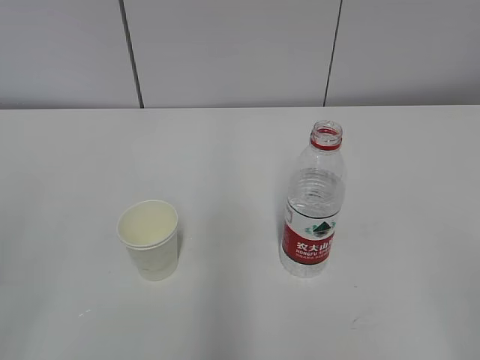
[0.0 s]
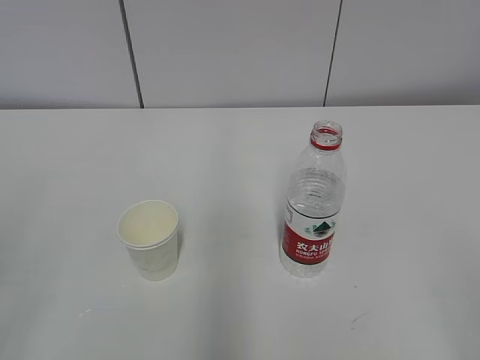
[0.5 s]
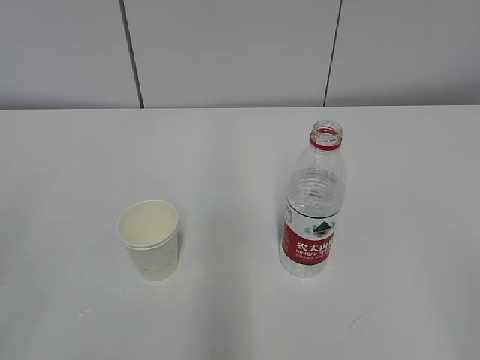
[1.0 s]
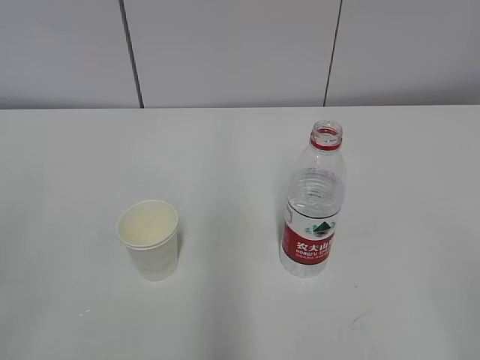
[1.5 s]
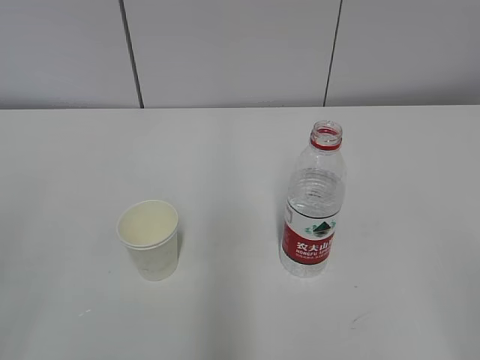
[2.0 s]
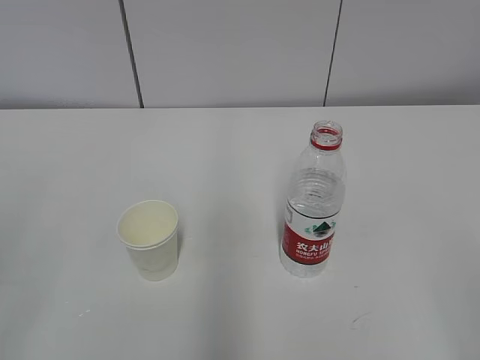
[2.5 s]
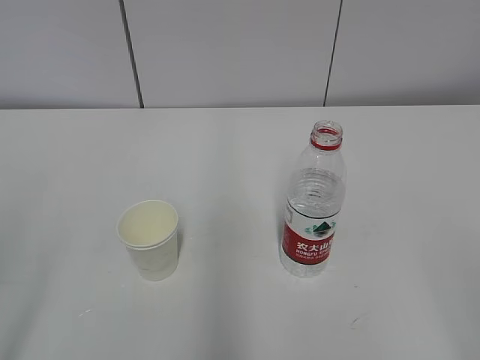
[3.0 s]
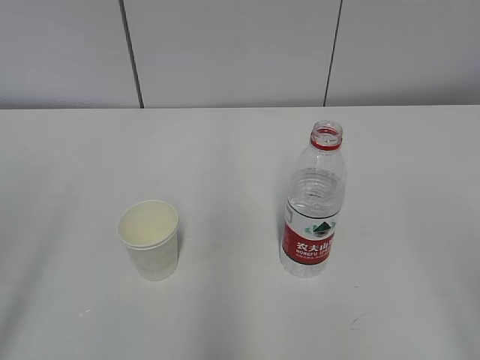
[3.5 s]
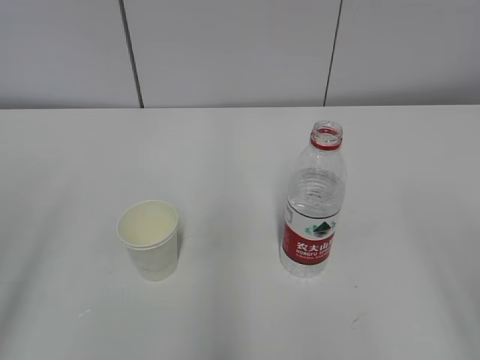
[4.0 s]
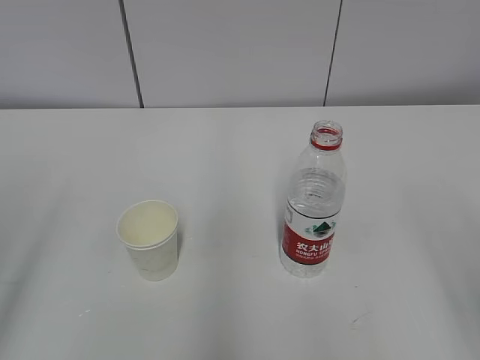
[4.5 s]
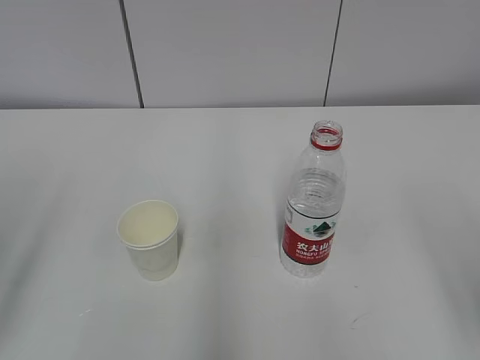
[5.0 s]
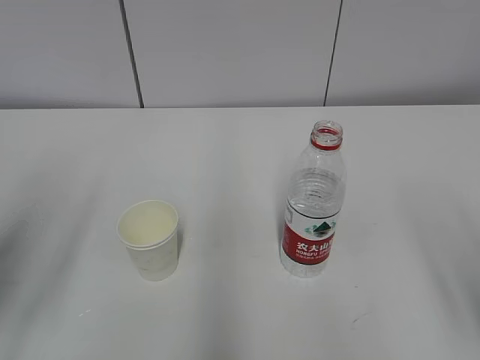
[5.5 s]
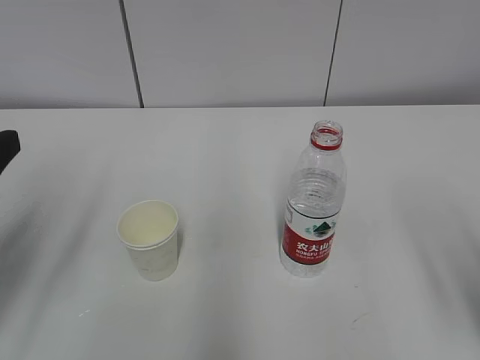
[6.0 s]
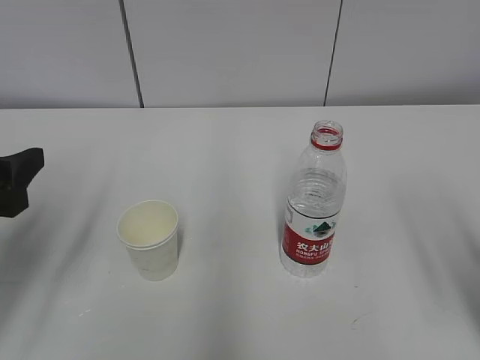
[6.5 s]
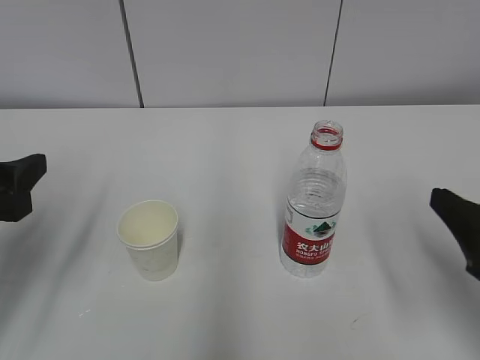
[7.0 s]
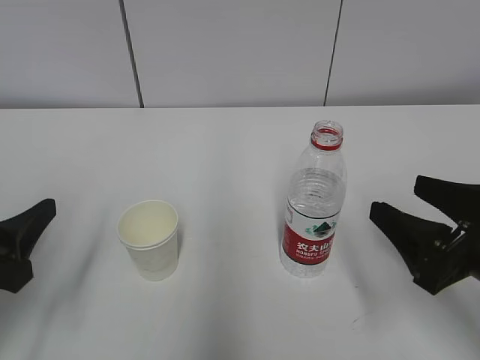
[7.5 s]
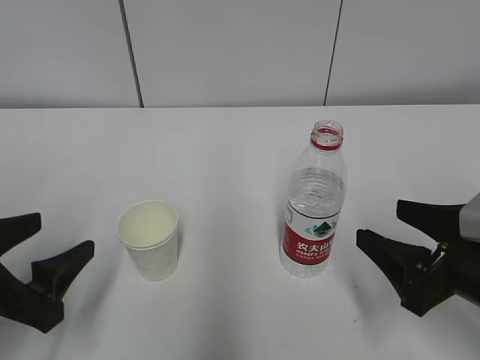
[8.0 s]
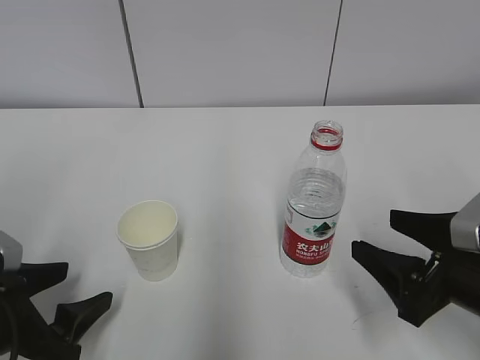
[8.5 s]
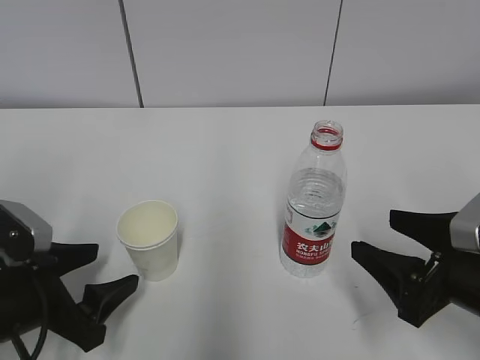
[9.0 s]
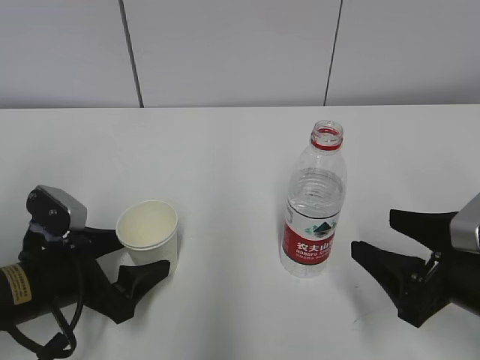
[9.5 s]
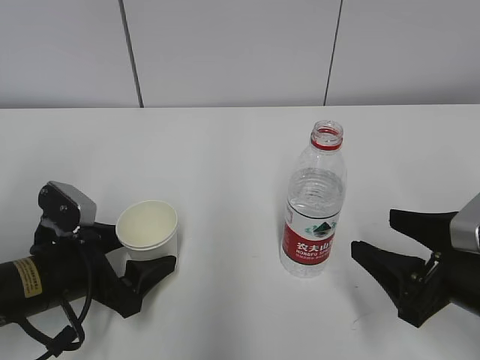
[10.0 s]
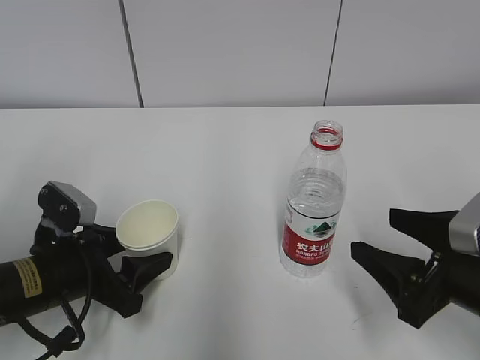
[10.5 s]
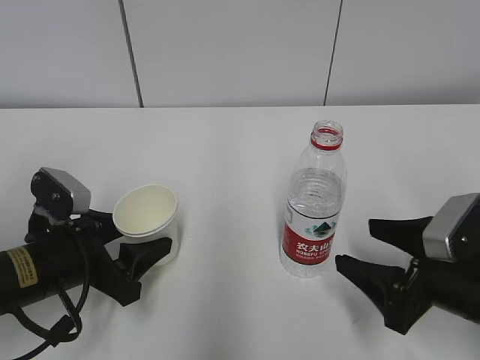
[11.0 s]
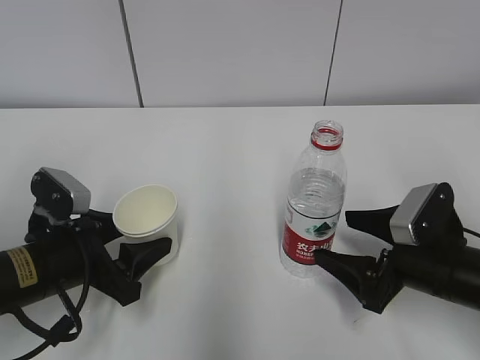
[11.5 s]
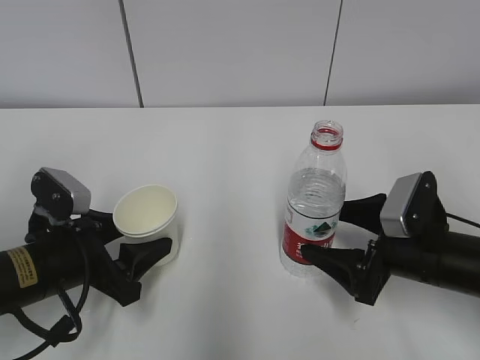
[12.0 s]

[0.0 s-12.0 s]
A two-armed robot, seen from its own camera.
Step, 0.0 to 8.5 s: Grab the paper cup with the left hand.
Step, 9.0 to 11.5 s: Grab the water bottle with the right hand.
4.0 to 6.0 s: The left gripper heads forward, covering approximately 10 cm.
6.0 to 8.0 s: The right gripper travels downward and forward by some 10 cm. Meanwhile the left gripper travels downward by approximately 10 cm.
8.0 to 10.0 s: The left gripper heads forward and downward, covering about 10 cm.
10.0 to 12.0 s: The left gripper closes, while the right gripper heads forward, covering some 5 cm.

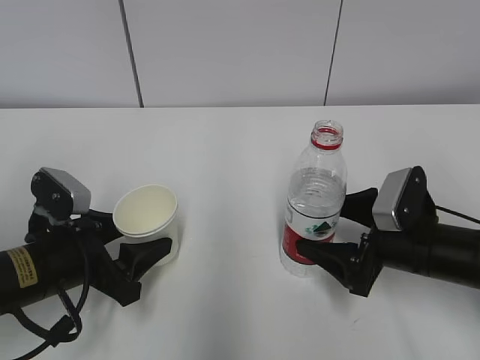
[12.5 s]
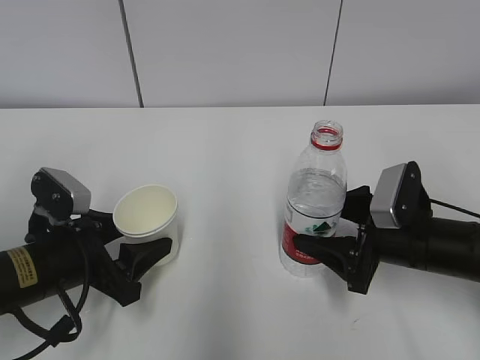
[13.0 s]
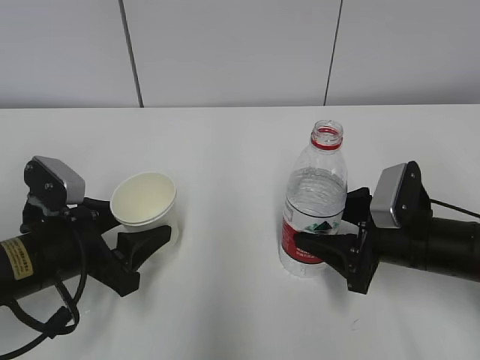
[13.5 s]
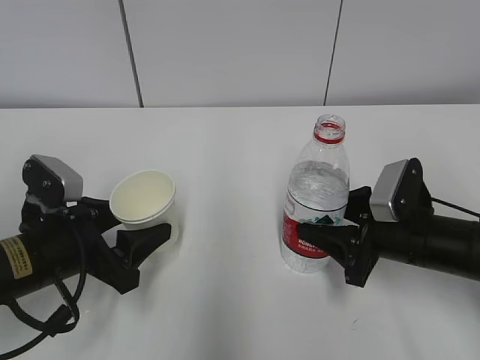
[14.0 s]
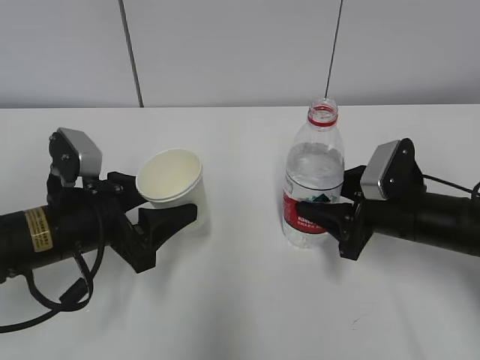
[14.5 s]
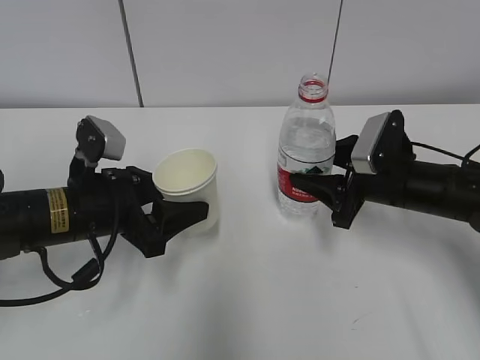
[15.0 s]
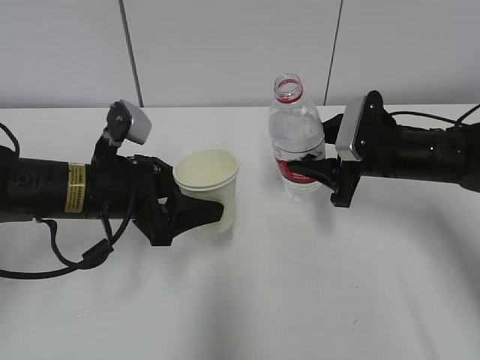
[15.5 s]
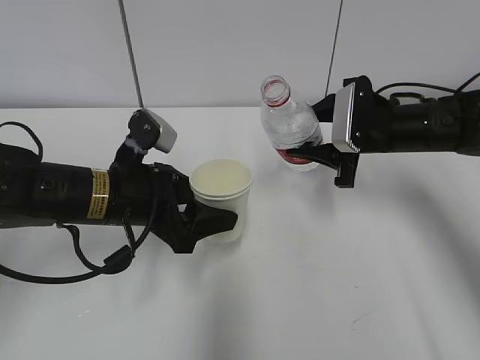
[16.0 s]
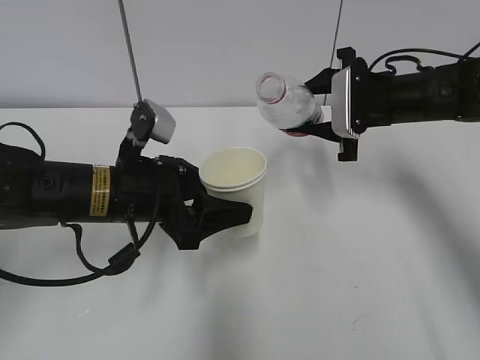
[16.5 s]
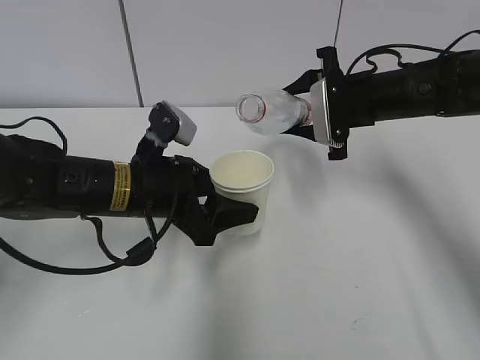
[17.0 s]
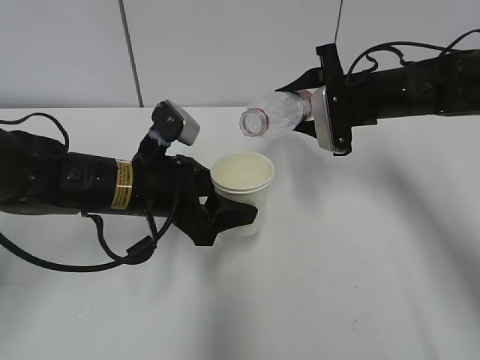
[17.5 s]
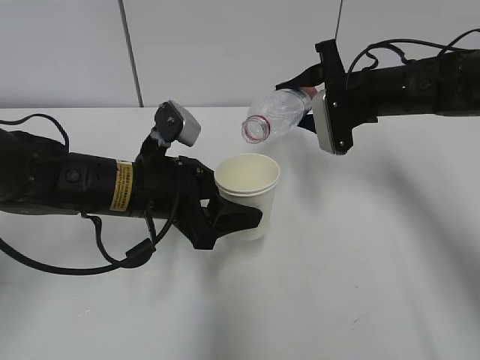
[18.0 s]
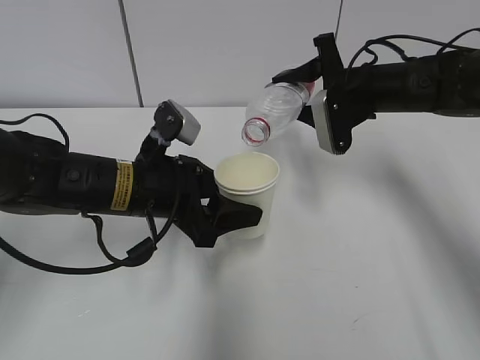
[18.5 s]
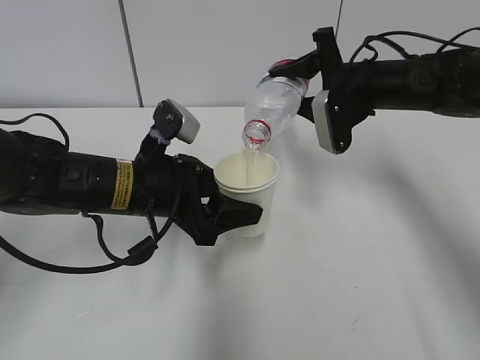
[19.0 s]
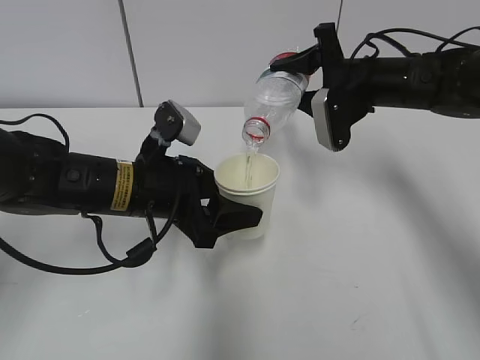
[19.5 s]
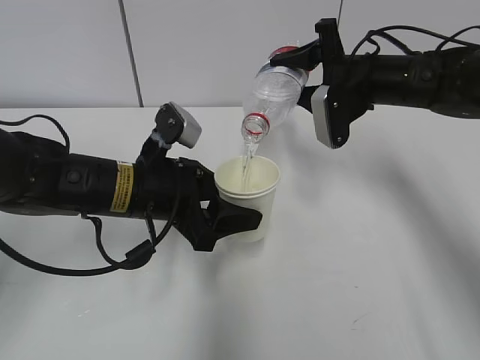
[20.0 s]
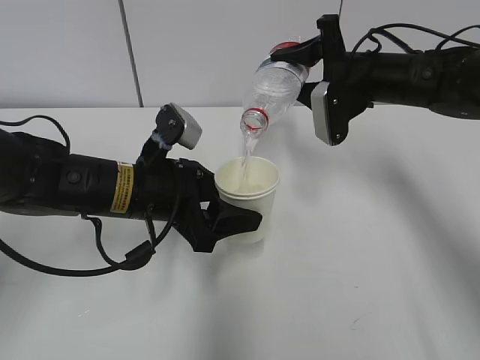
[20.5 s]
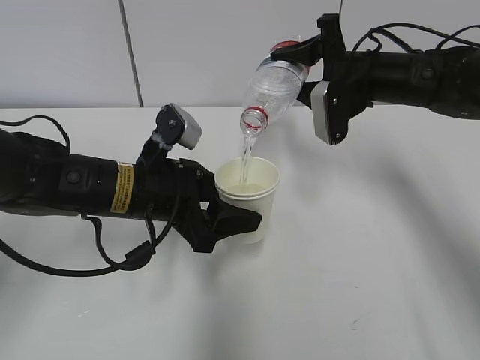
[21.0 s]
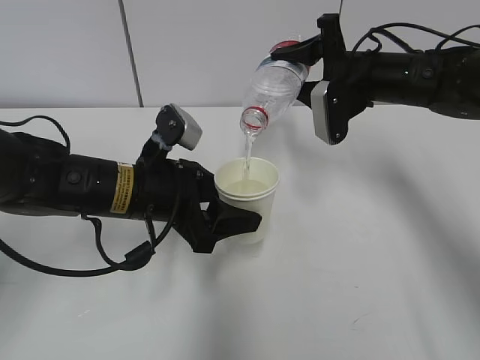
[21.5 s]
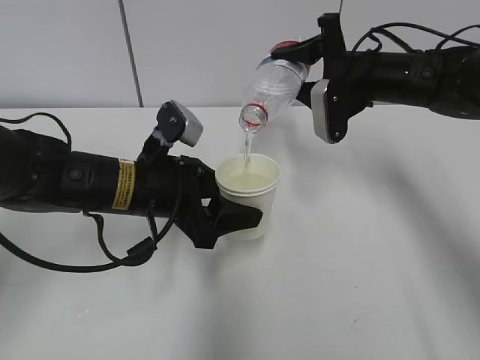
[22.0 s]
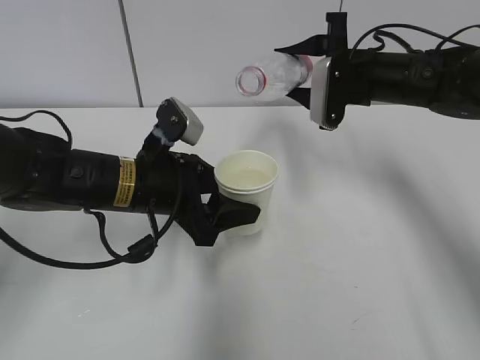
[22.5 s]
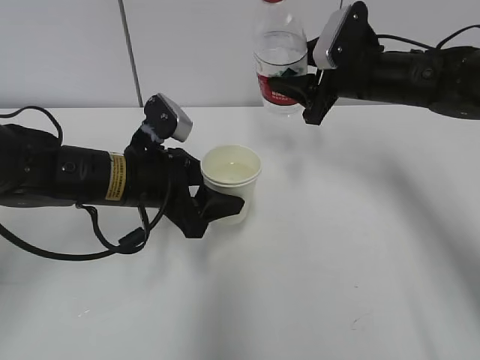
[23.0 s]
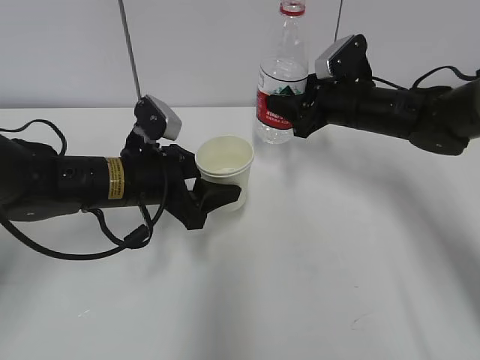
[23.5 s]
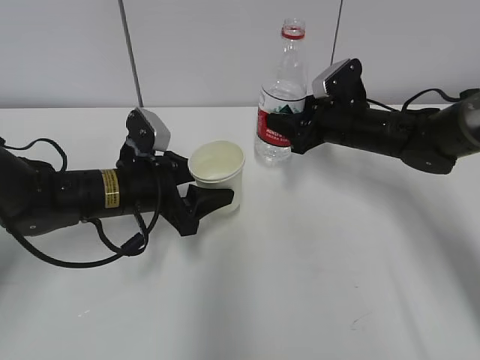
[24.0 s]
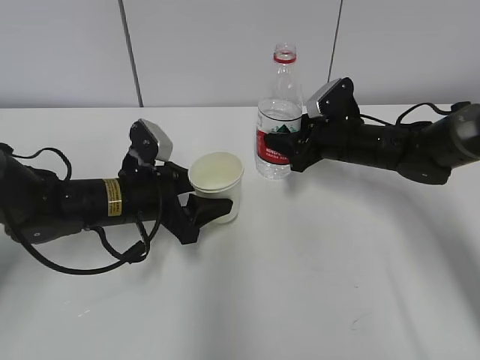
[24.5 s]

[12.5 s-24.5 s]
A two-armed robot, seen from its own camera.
Step, 12.5 to 15.5 s: Lift the paper cup with the left hand.
Step, 16.0 to 18.5 s: Fill water with the left hand.
Step, 16.0 to 18.5 s: Pour water with the right hand.
Step, 19.5 to 20.5 s: Place the paper cup with the left hand.
12.5 to 14.5 s: The right gripper closes.
14.5 to 16.5 s: The right gripper moves forward and upward, approximately 15 cm, while the left gripper shifts roughly 5 cm to the right.
18.5 to 22.5 s: The grippers move only a little.
22.5 to 24.5 s: The left gripper is displaced downward by about 5 cm; the right gripper moves downward, some 10 cm.

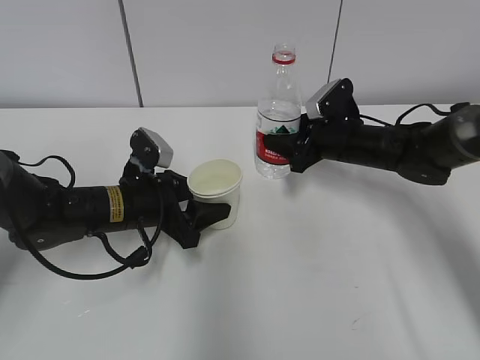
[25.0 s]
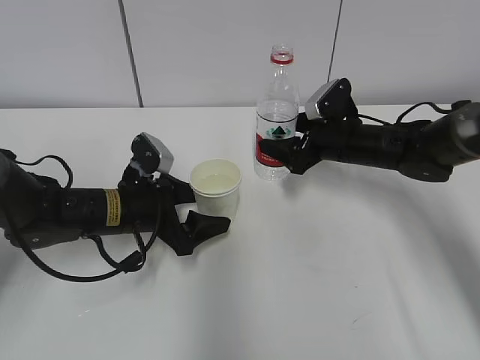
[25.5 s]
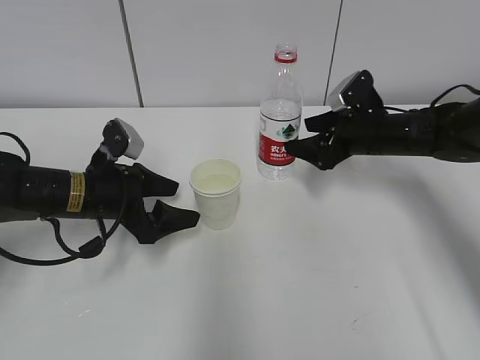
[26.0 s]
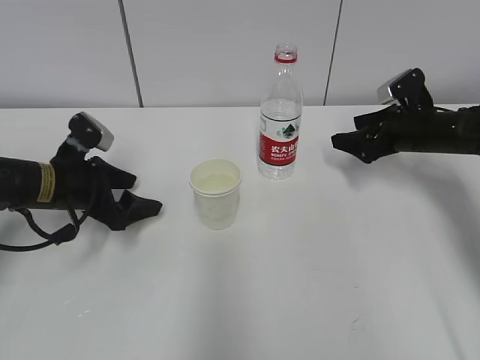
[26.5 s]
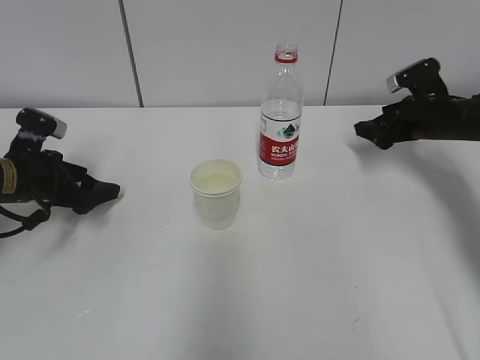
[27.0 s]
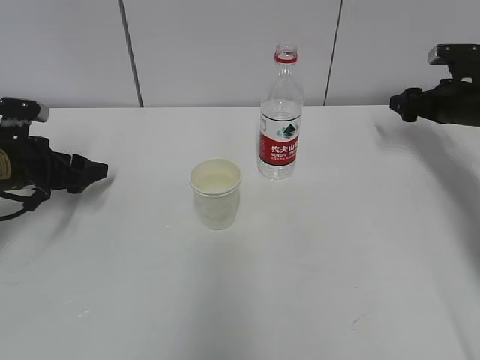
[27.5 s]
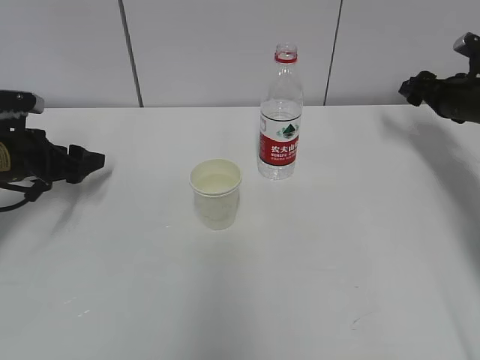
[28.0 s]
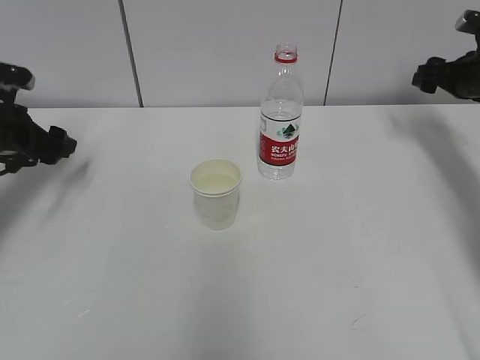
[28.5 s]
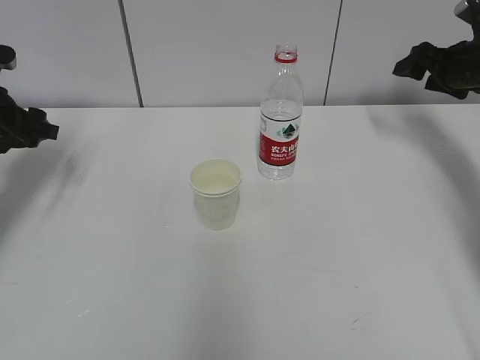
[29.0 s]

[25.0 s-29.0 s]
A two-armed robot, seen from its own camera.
25.0 to 27.0 s: The left gripper moves to the left, roughly 15 cm, and opens its fingers. The right gripper travels to the right by approximately 15 cm, and opens its fingers.
27.0 to 29.0 s: The two grippers go approximately 10 cm upward. The left gripper closes its fingers.
